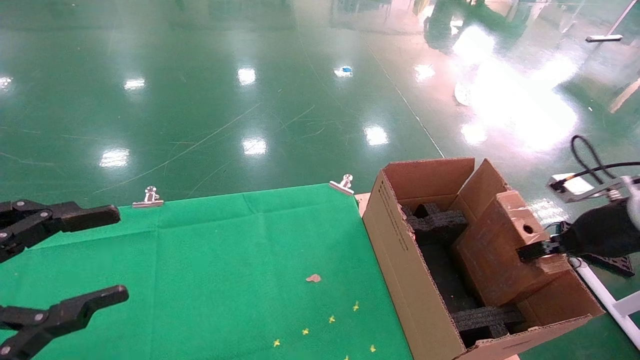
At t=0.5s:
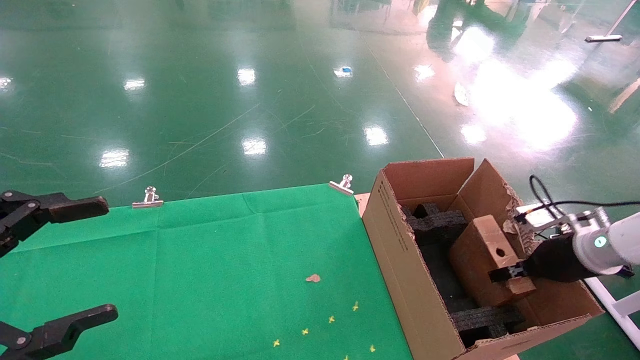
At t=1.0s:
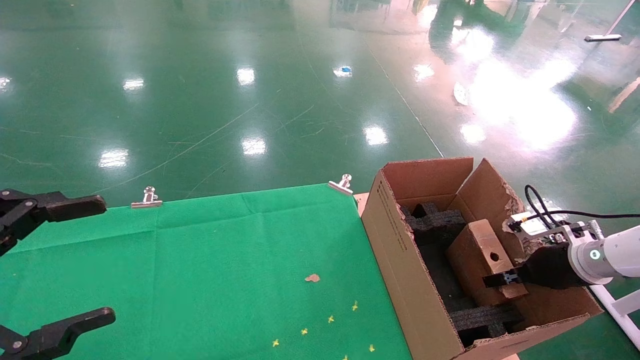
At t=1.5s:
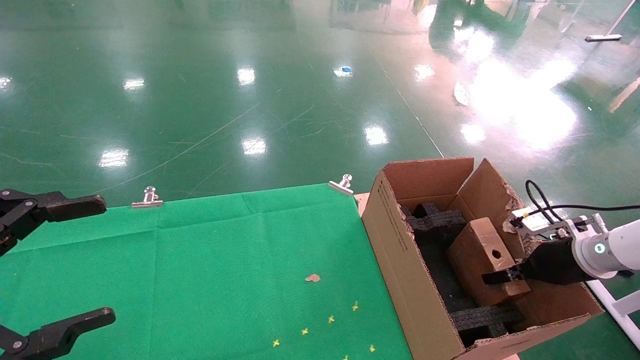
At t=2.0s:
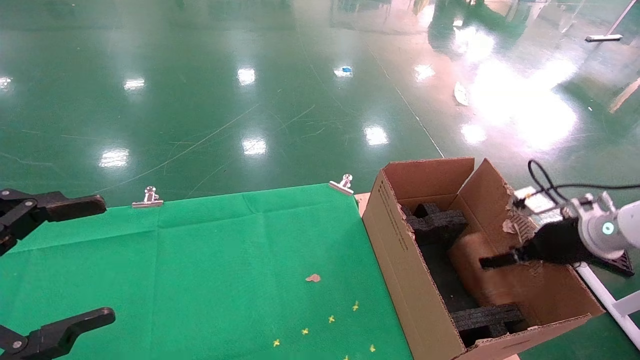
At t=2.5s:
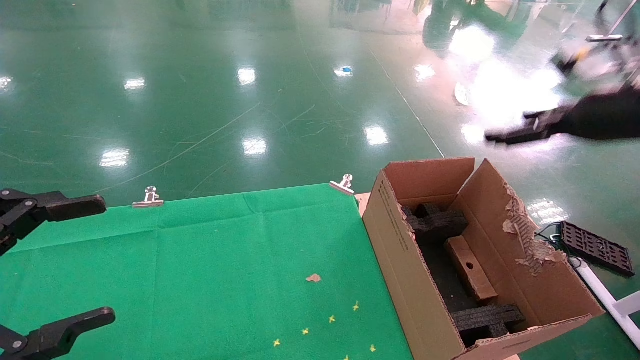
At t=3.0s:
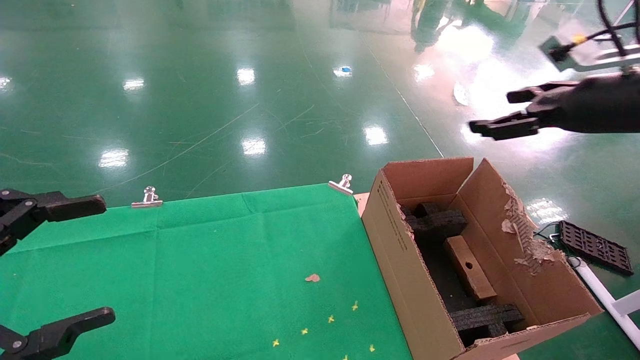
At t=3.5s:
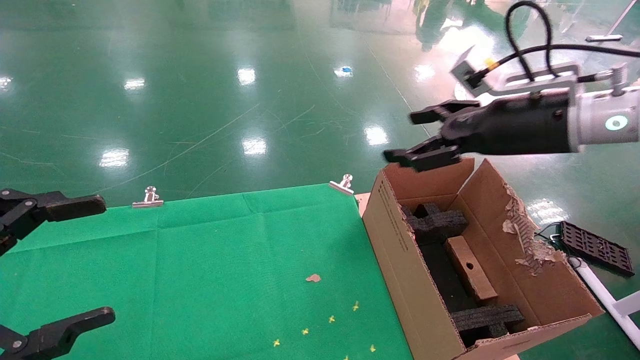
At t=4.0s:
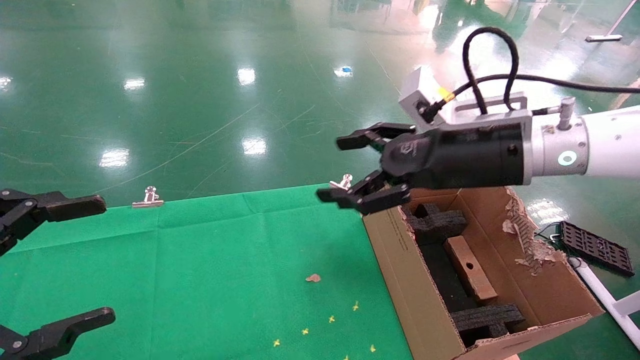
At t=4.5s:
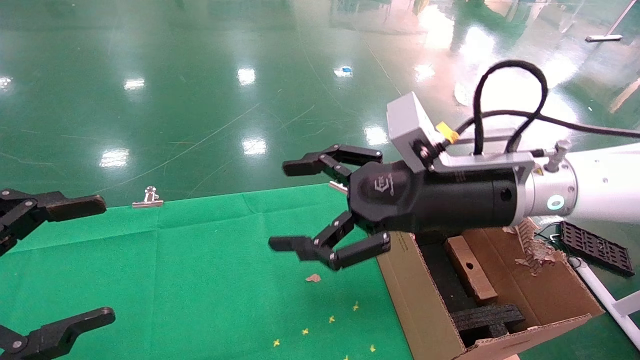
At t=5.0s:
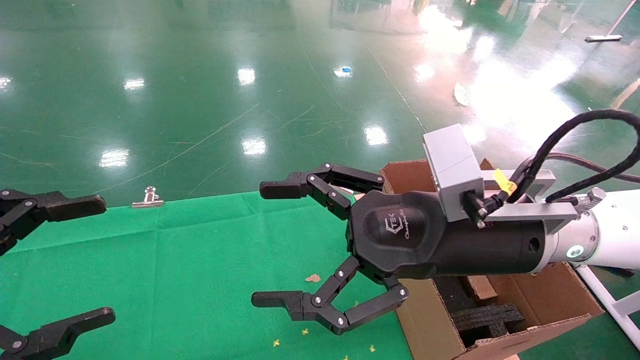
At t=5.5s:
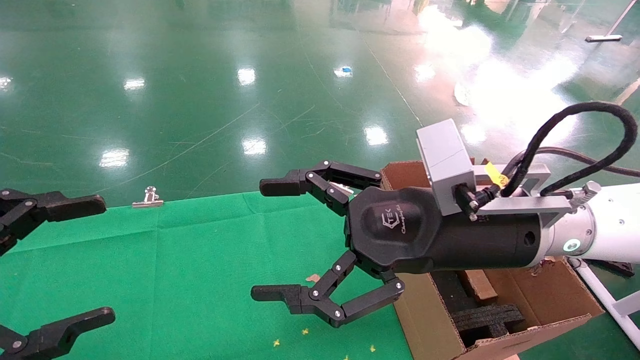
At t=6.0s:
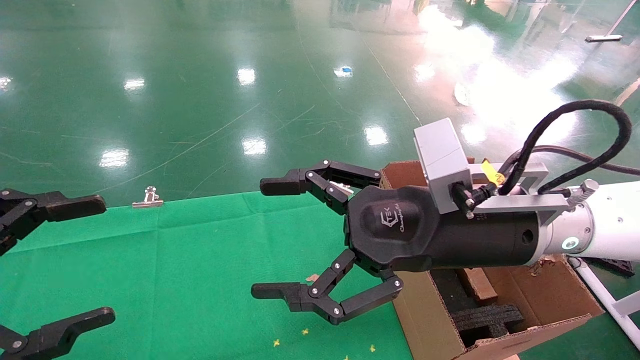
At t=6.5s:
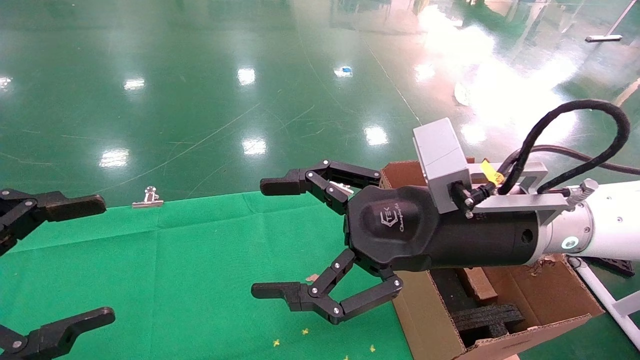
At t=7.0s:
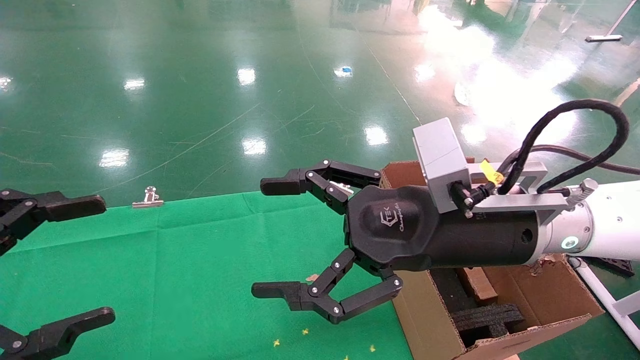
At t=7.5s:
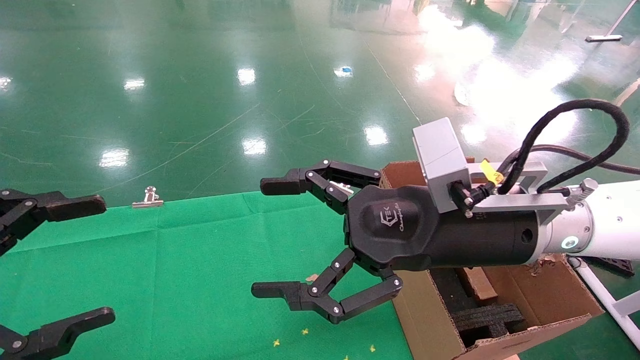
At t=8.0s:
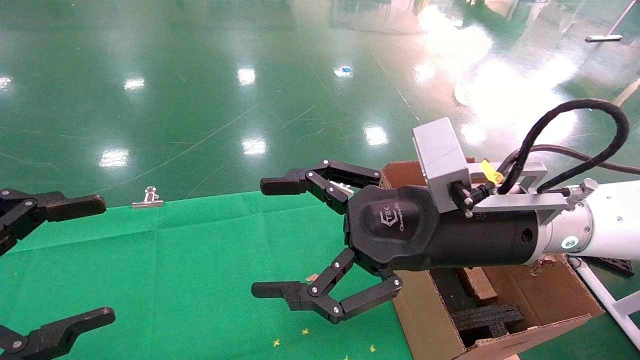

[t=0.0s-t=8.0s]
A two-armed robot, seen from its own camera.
Task of the whole recording: using a robotic arm to pick up a cardboard box and palace it the carton.
Step, t=0.0s to t=2.0s: Place the mouse and the power cord paper box into the container.
t=0.0s to t=2.0s: The left gripper opens, while the right gripper goes downward and returns, some 10 cm each way, and opens its fingers.
t=2.0s to t=4.0s: The right gripper travels to the left and upward by about 25 cm, and opens up.
t=4.0s to t=6.0s: The right gripper is displaced backward and to the left by about 10 cm.
t=6.0s to t=8.0s: Neither gripper changes place.
